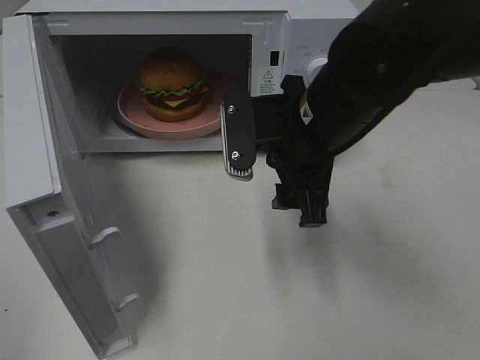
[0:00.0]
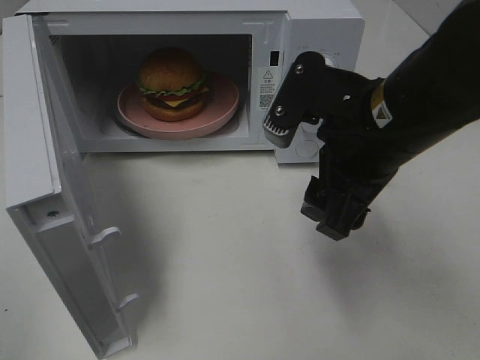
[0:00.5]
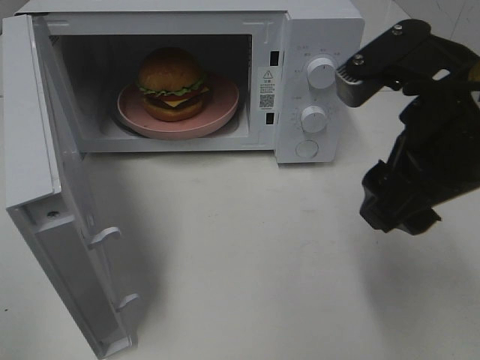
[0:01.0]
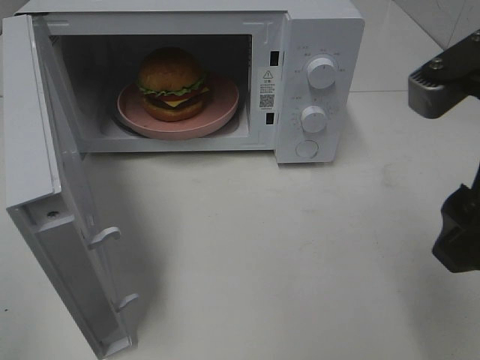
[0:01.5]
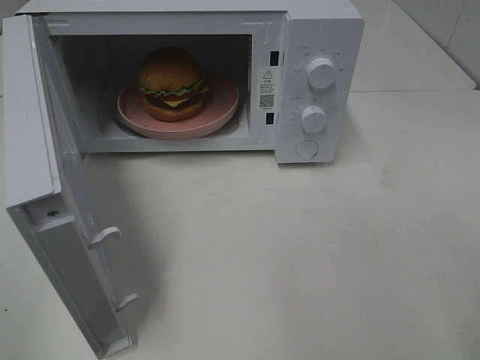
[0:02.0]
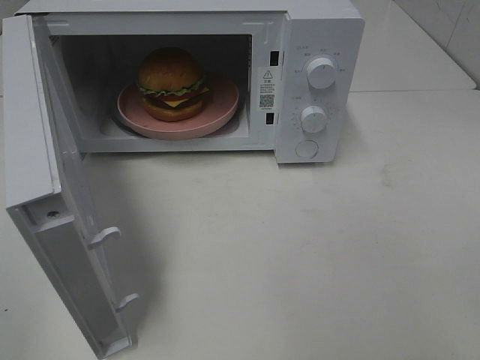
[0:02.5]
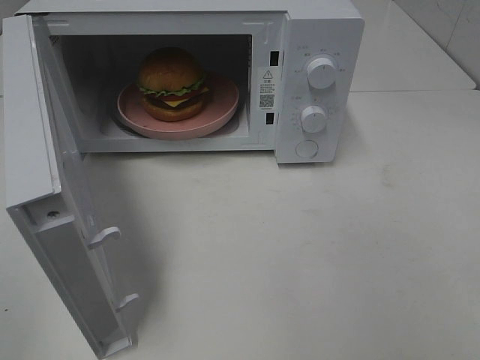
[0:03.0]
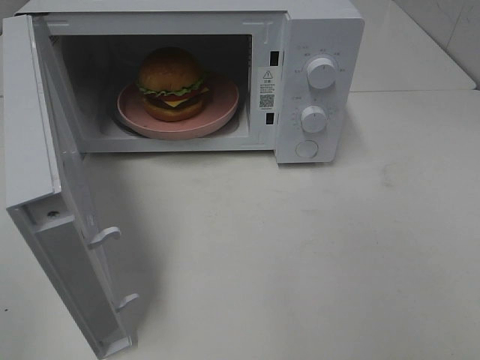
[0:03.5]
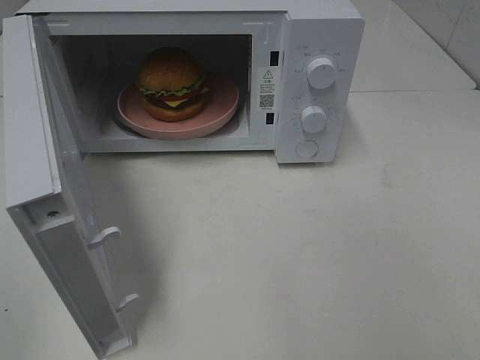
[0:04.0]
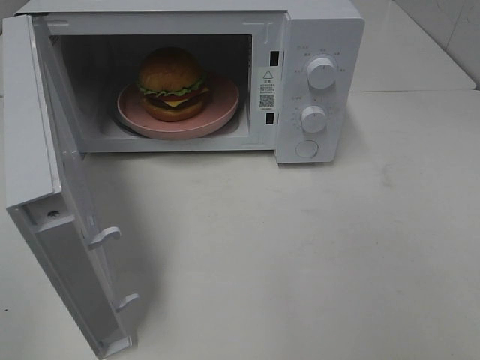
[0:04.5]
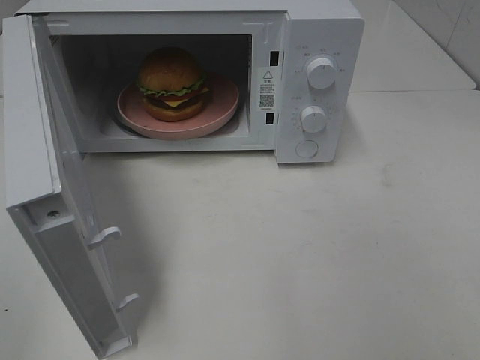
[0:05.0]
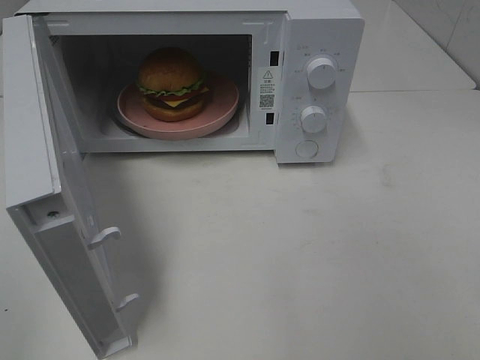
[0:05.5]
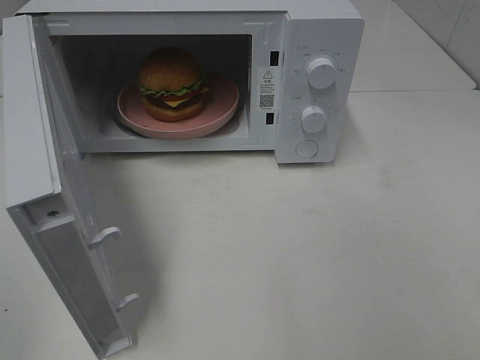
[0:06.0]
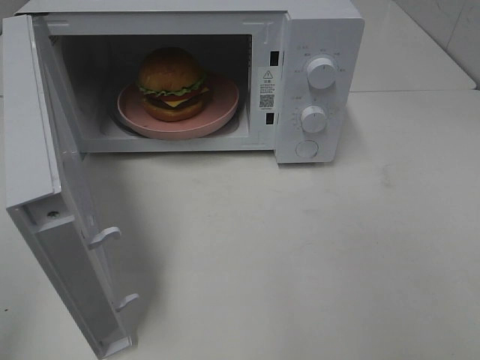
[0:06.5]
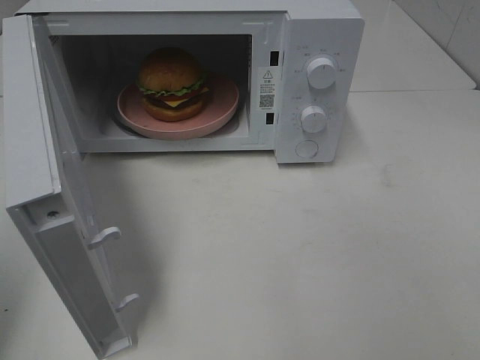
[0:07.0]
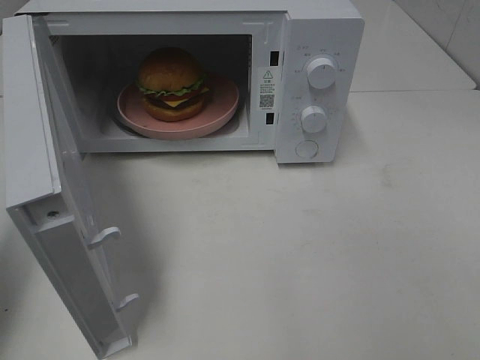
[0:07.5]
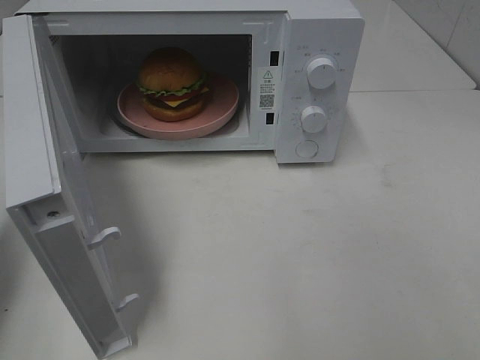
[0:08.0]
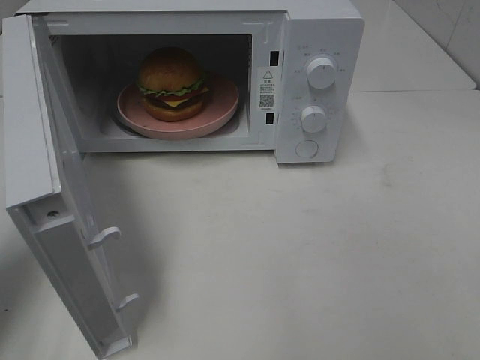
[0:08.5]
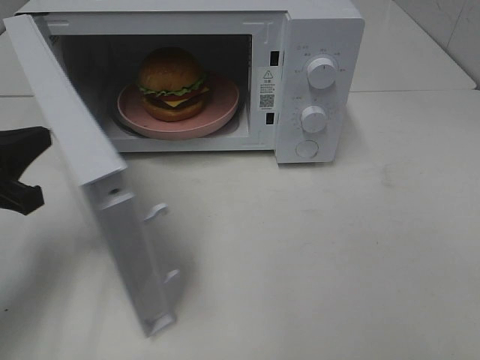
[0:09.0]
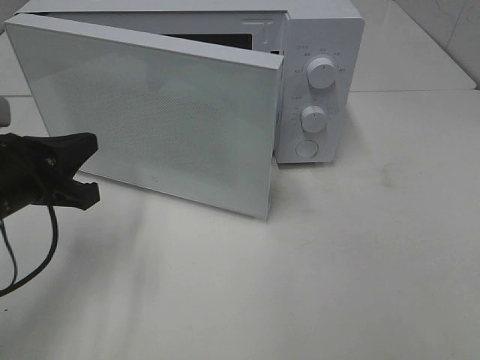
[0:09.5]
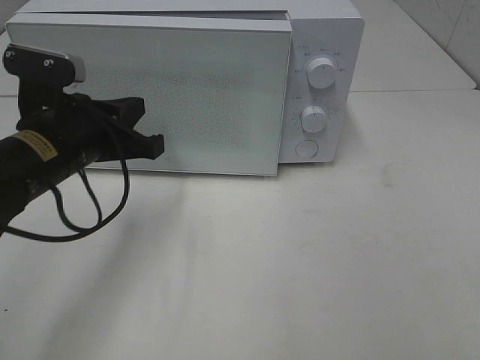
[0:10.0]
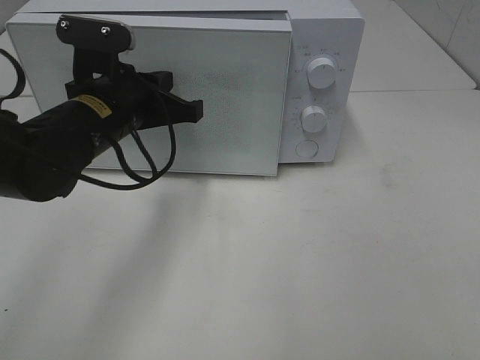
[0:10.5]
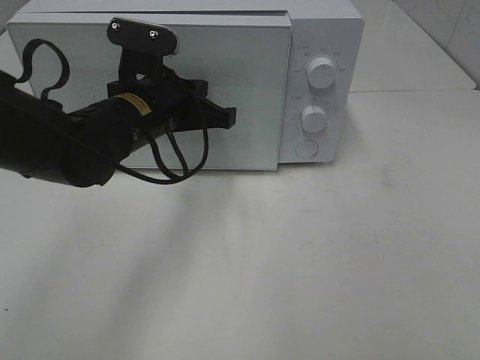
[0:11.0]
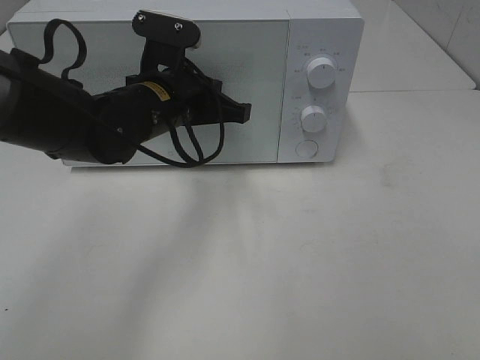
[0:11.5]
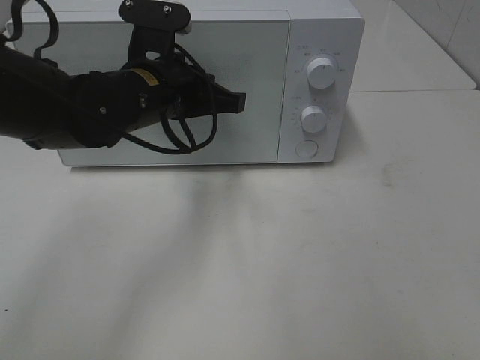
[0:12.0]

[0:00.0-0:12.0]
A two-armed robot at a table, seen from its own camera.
Task of the whole recording: Heat the burger.
0:00.0 to 0:02.0: The right gripper heads backward, to the right and upward, covering approximately 25 cm.
0:04.0 to 0:06.0: Neither gripper changes place.
0:06.0 to 0:08.0: The left gripper moves forward, roughly 20 cm, and closes up.
0:08.0 to 0:10.0: The left gripper is displaced to the right, forward and downward by about 20 cm.
0:10.0 to 0:12.0: The left gripper travels to the right and forward by approximately 10 cm.

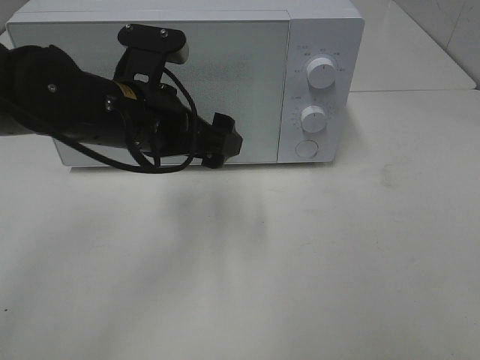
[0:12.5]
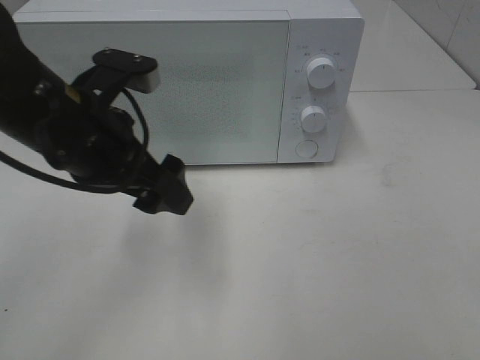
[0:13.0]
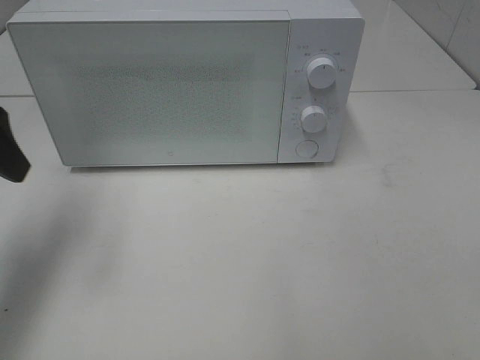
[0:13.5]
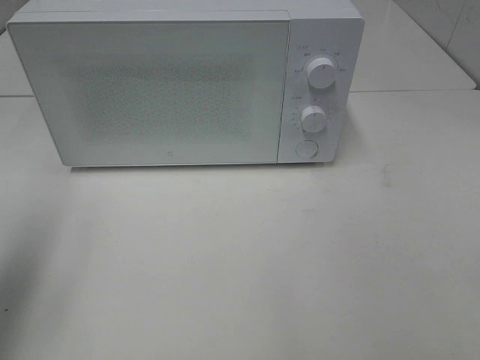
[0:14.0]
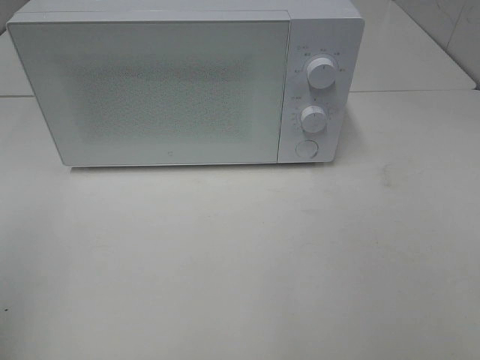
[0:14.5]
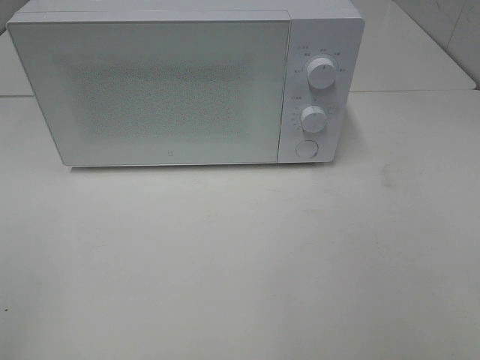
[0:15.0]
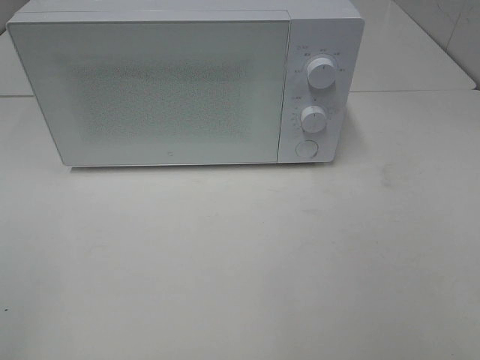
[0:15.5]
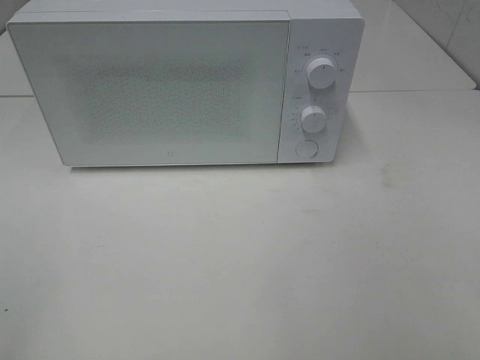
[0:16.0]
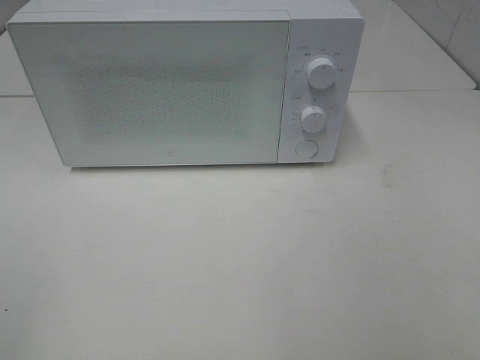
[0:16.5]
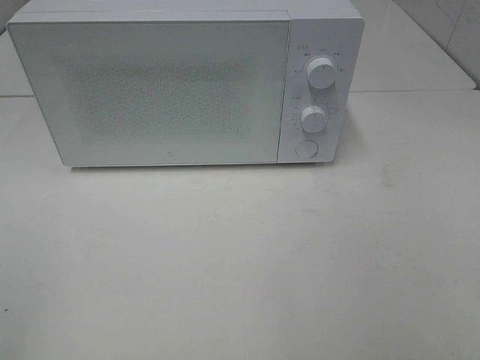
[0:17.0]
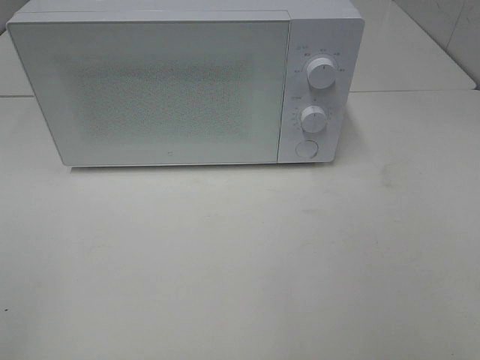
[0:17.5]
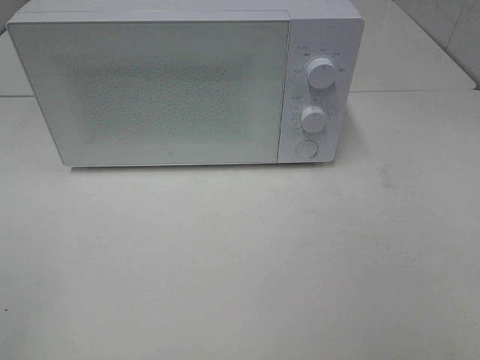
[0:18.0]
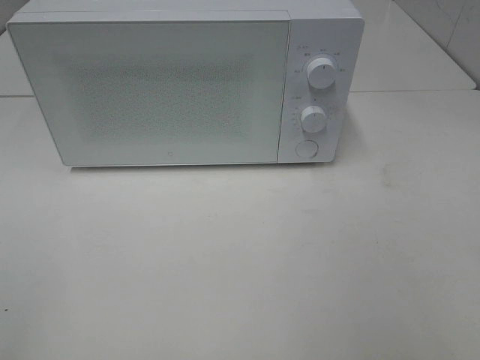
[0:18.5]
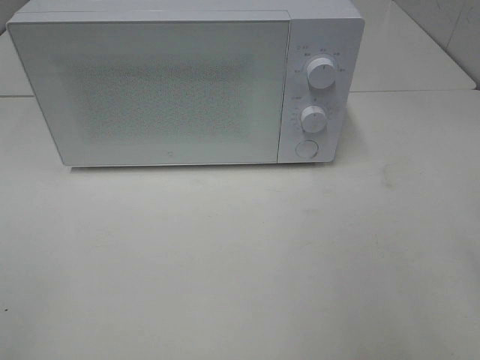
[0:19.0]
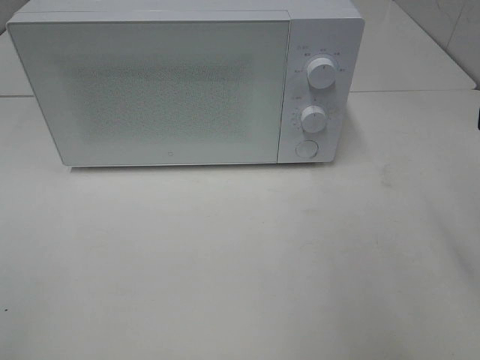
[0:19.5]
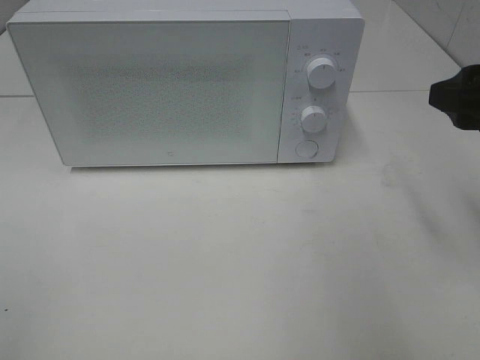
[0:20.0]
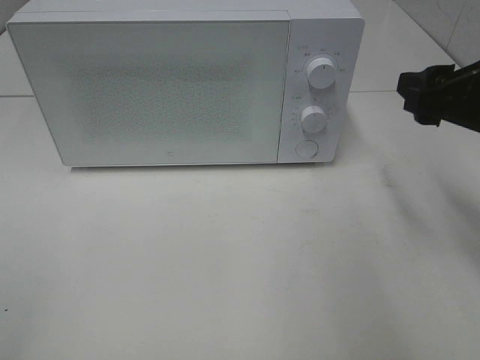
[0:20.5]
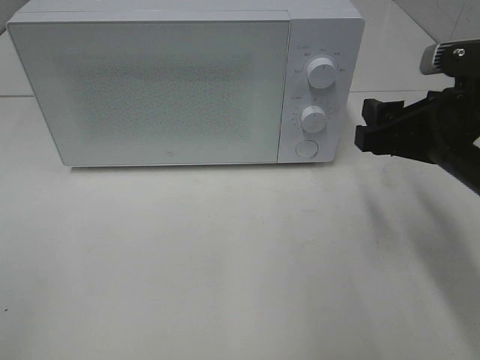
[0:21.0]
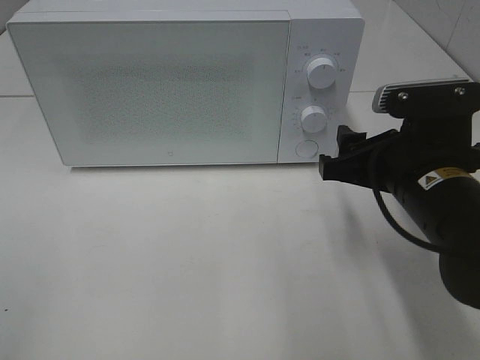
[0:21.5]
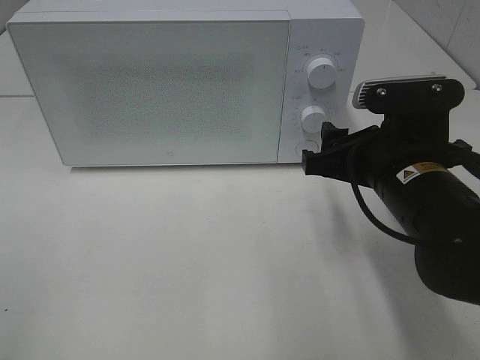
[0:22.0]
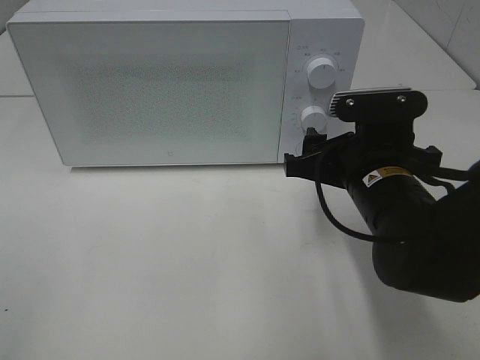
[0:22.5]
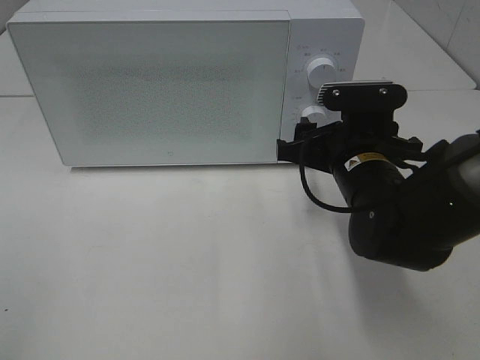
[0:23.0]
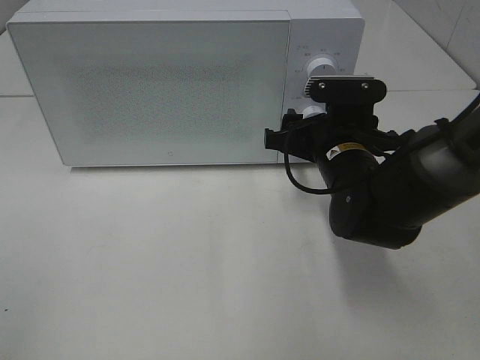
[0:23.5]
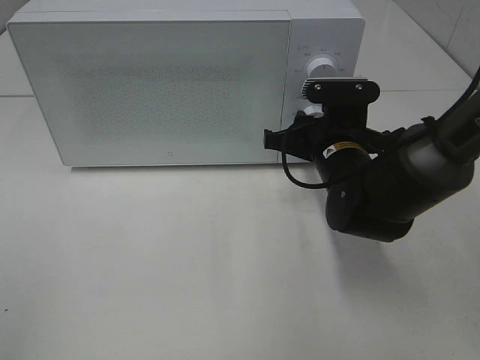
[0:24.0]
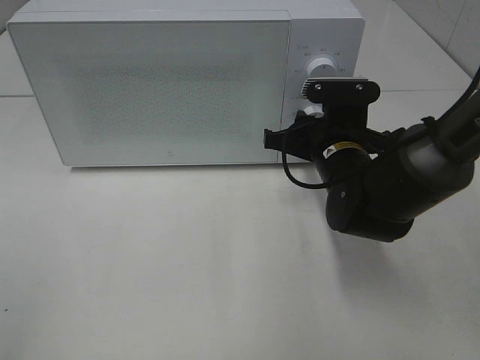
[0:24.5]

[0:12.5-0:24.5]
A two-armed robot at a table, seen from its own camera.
Task of the whole recording: Heat the burger.
0:12.5 to 0:14.5: The left gripper is displaced to the left, backward and upward by approximately 35 cm.
0:18.5 to 0:20.5: The right gripper travels forward by some 20 cm.
0:20.5 to 0:22.5: The right gripper is displaced to the left and downward by about 15 cm.
0:22.5 to 0:24.5: The right gripper travels forward by roughly 10 cm, and closes.

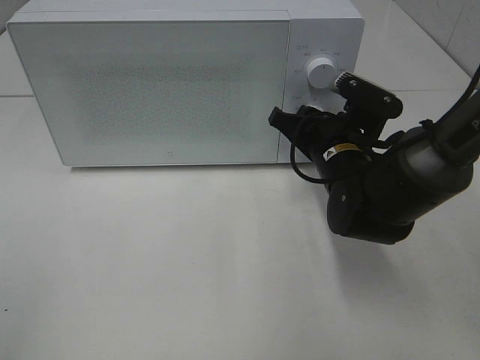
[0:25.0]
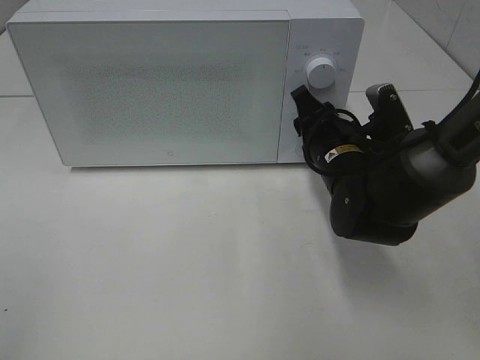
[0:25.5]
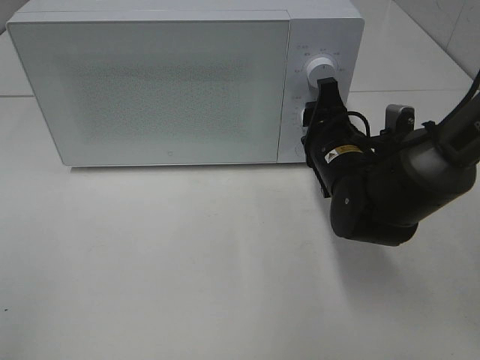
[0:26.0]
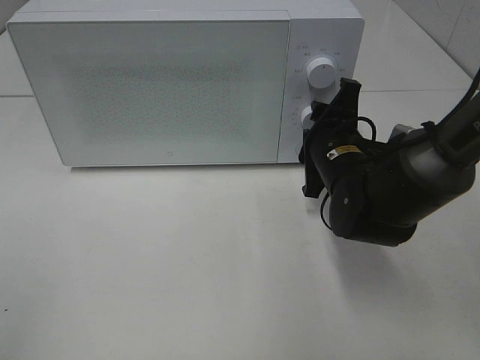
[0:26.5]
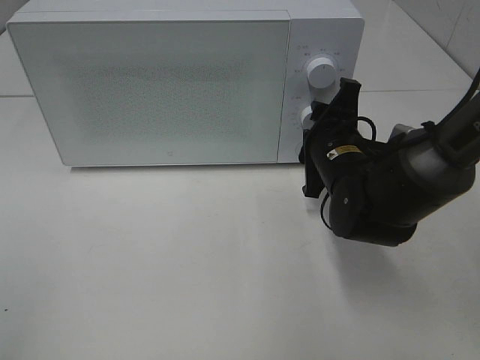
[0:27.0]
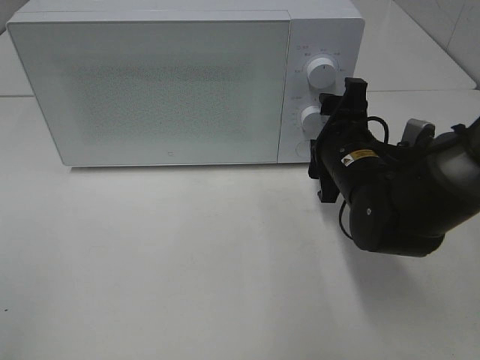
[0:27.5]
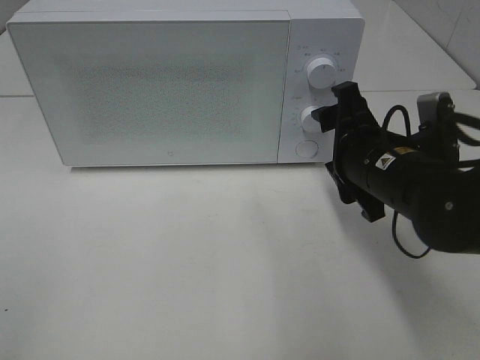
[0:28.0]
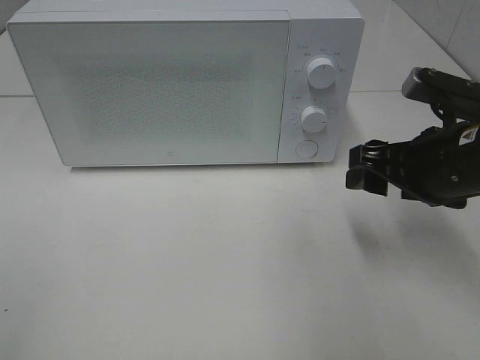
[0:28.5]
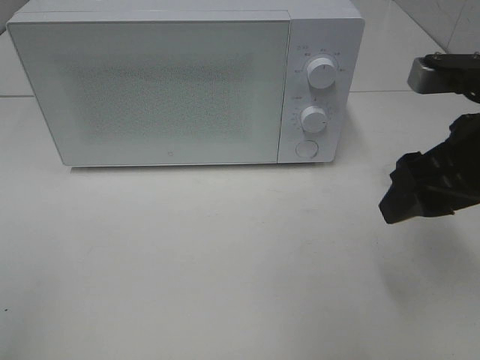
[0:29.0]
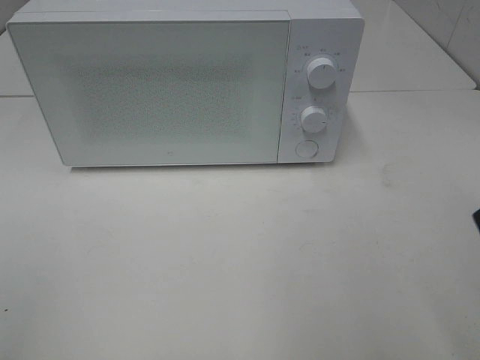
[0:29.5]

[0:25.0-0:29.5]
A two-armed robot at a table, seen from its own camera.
Task of the whole recording: Heat the burger.
Step, 0:25.0 to 0:27.0: Right hand: twist timer button.
0:27.0 to 0:29.5: The right gripper heads backward, upward and to the right, covering some 30 cm.
